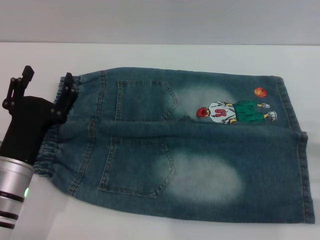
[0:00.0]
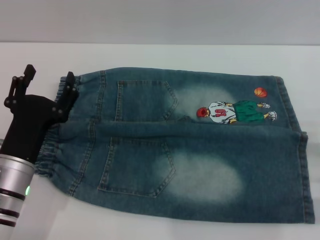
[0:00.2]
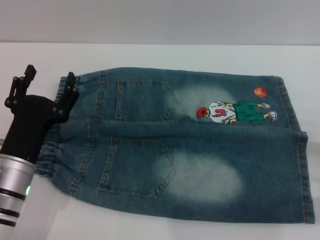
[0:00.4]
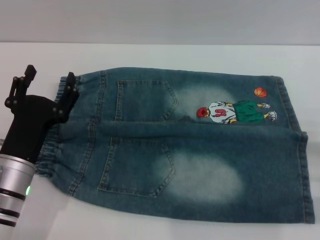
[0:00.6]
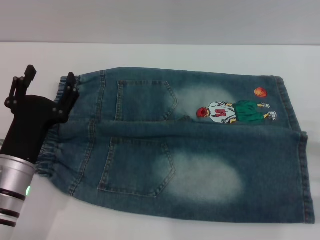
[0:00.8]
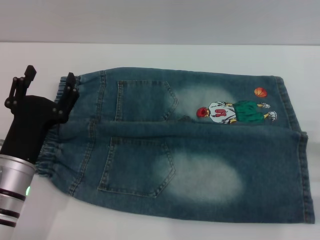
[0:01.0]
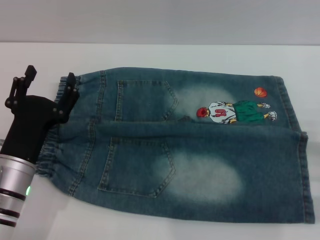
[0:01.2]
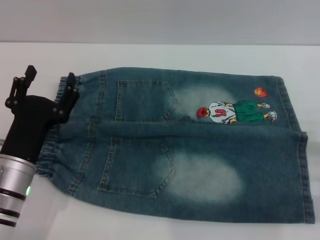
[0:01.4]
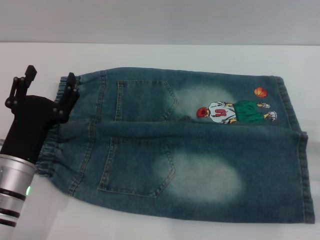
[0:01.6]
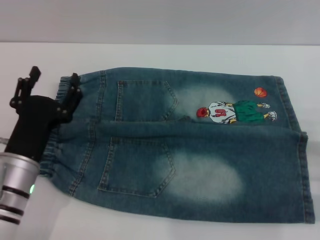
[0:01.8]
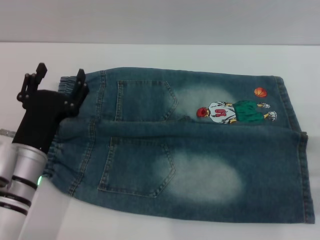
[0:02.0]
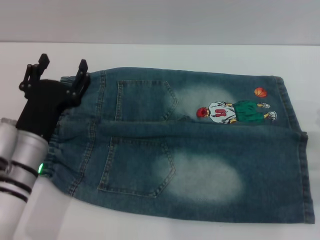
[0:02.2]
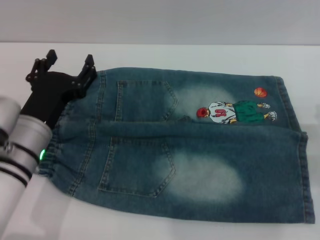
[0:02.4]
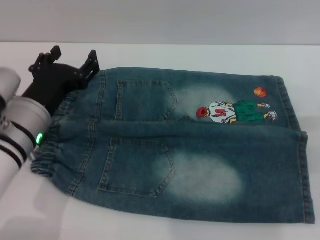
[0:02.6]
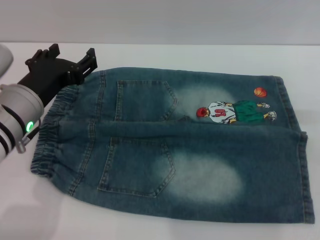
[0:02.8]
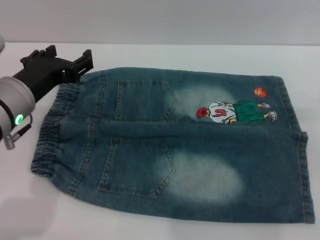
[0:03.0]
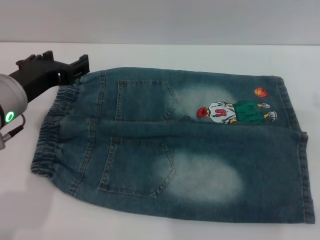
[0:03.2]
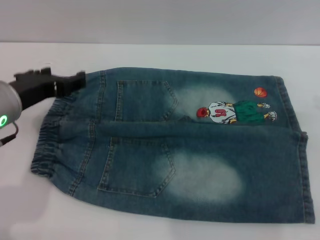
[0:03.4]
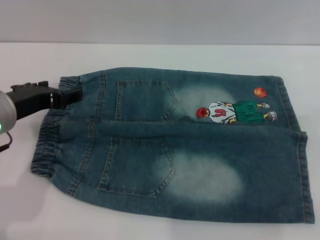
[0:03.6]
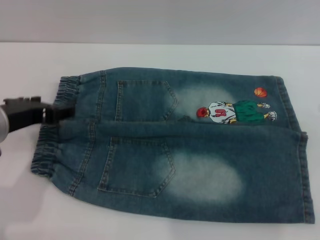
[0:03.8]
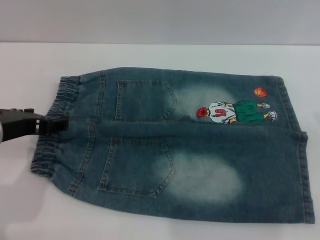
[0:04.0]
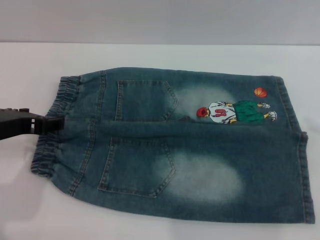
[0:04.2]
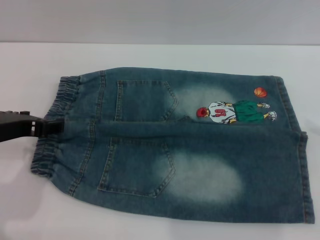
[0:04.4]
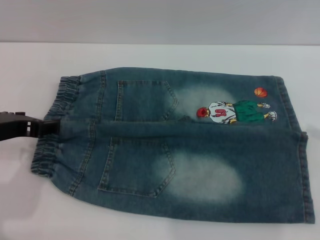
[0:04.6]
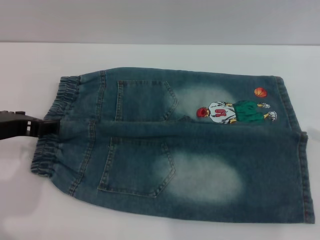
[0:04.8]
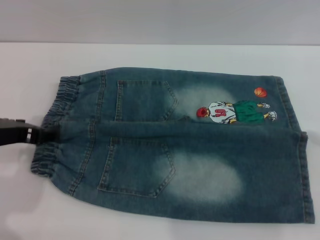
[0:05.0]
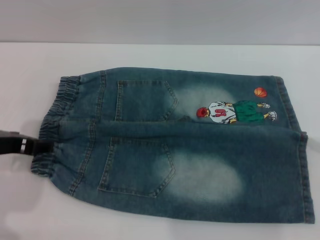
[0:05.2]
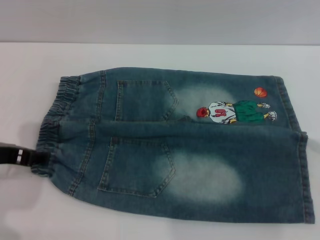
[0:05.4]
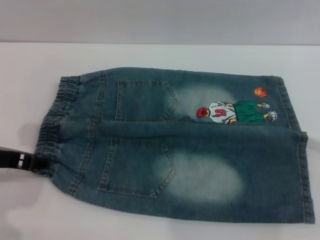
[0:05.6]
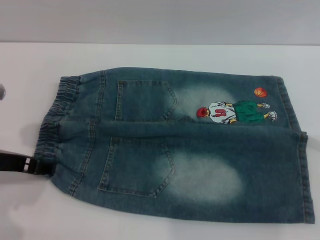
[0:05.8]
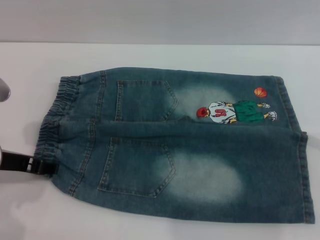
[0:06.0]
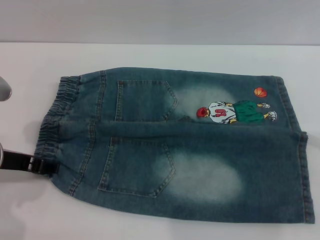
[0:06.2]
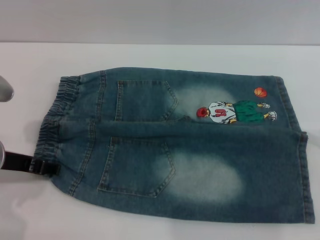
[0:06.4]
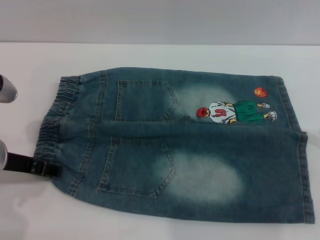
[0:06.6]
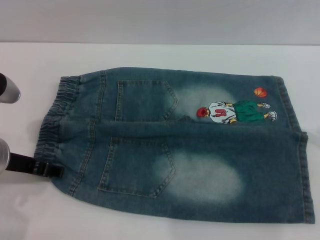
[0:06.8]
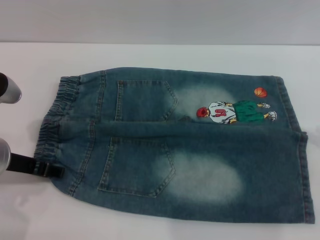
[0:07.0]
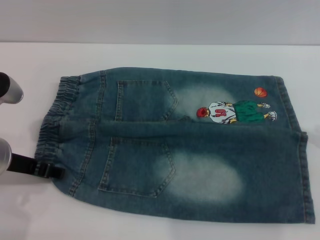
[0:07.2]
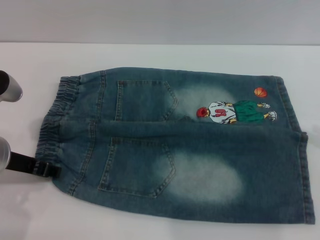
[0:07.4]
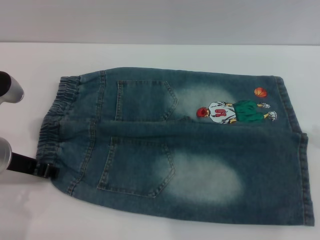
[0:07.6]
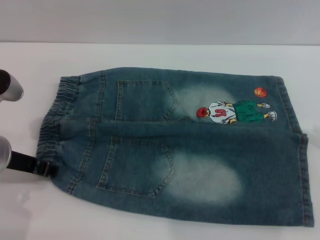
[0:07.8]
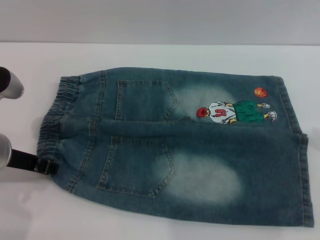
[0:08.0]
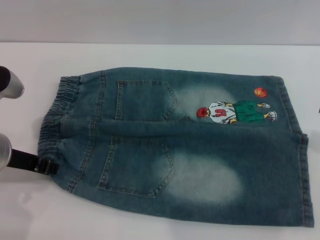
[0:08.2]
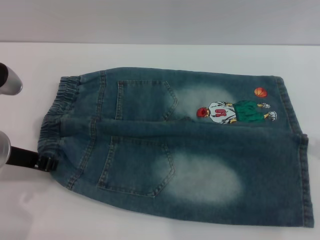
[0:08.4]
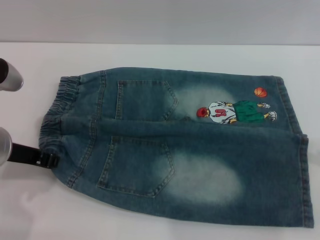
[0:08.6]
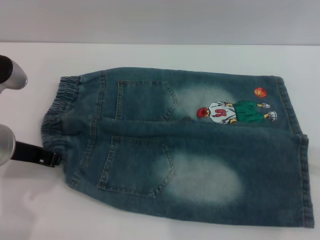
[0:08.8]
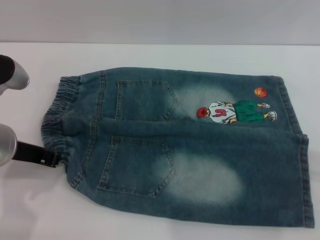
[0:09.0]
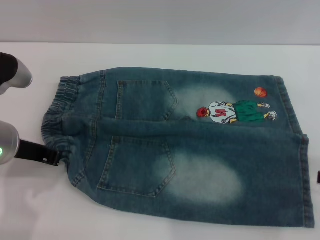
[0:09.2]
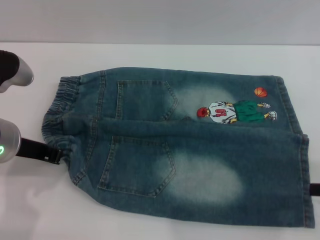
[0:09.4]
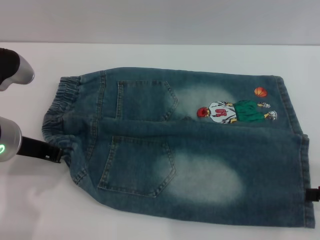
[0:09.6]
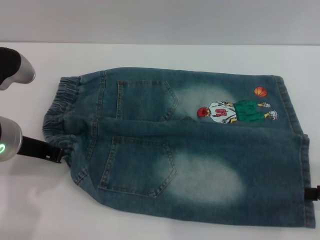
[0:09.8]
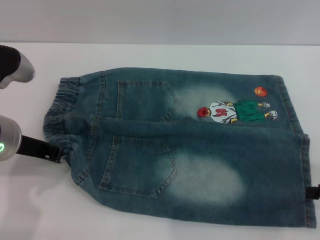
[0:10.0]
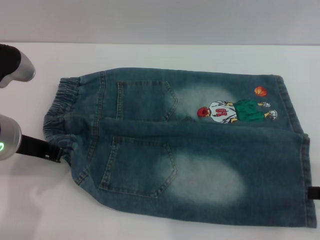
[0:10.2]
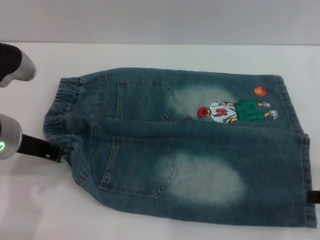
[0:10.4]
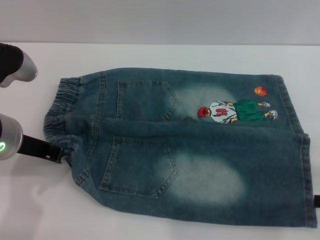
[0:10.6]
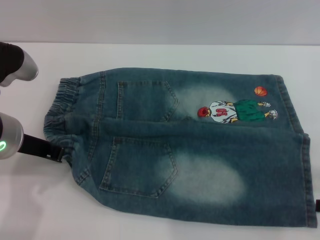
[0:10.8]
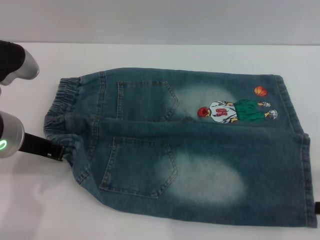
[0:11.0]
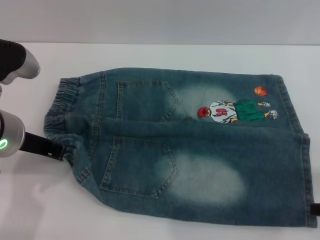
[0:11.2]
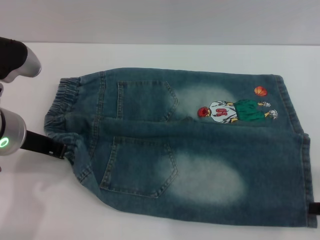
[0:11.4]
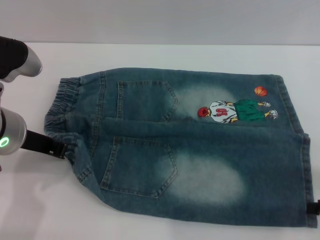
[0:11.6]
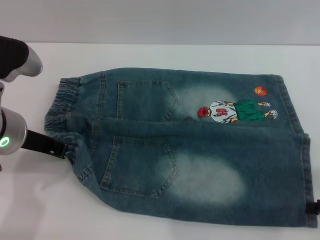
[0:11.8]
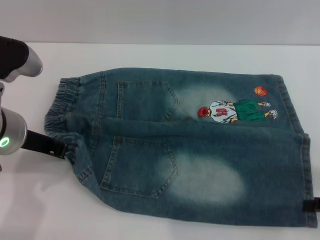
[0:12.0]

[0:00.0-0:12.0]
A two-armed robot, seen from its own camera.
0:00.0 to 0:01.6: Neither gripper changes place.
0:01.6 to 0:03.0: The left gripper travels upward and forward by some 10 cm.
0:04.4 to 0:06.0: The grippers stay close to where they were, moving slightly.
0:06.0 to 0:07.6: The grippers move only a little.
0:07.6 to 0:09.0: The left gripper closes up.
0:09.0 to 0:12.0: The grippers stay close to where they were, moving slightly.

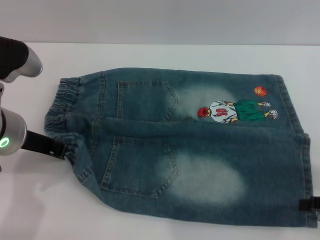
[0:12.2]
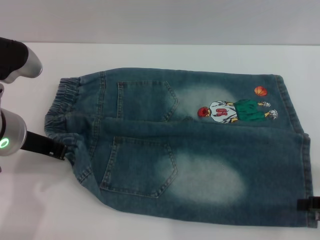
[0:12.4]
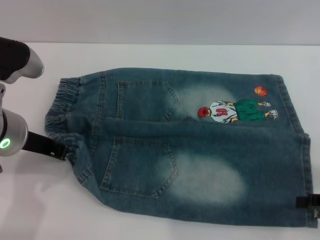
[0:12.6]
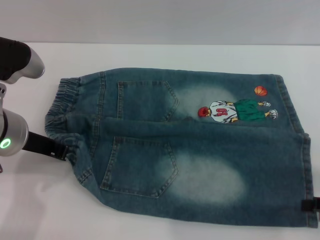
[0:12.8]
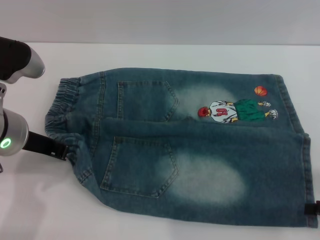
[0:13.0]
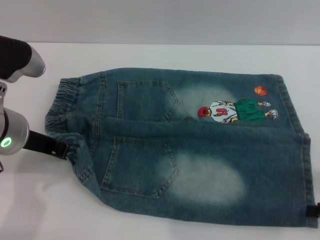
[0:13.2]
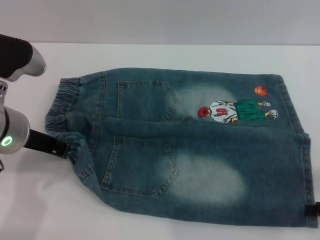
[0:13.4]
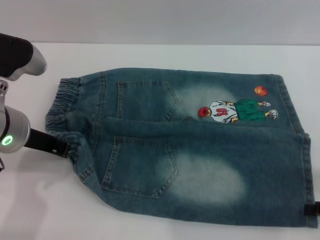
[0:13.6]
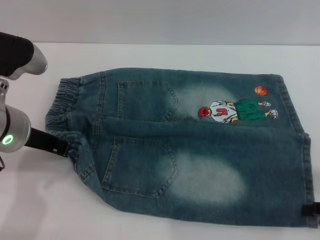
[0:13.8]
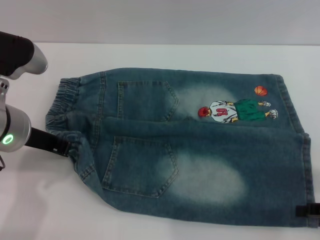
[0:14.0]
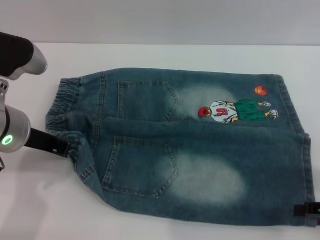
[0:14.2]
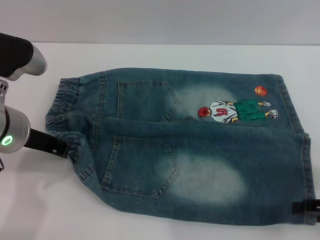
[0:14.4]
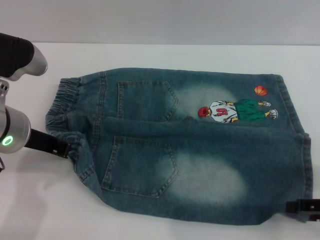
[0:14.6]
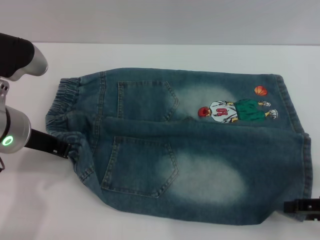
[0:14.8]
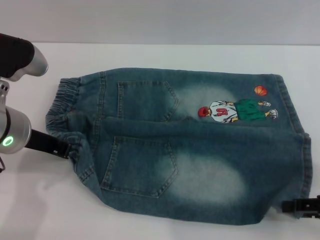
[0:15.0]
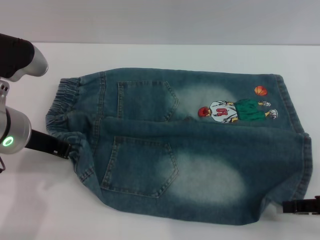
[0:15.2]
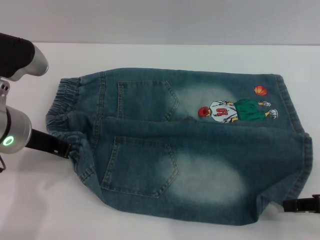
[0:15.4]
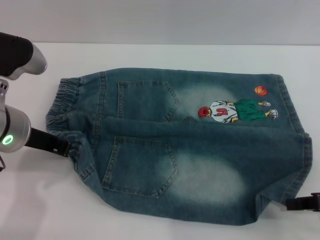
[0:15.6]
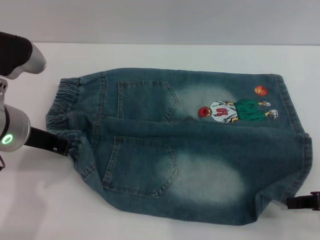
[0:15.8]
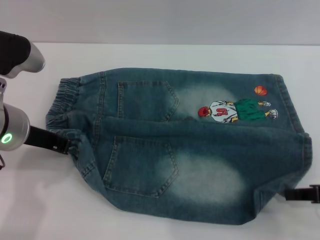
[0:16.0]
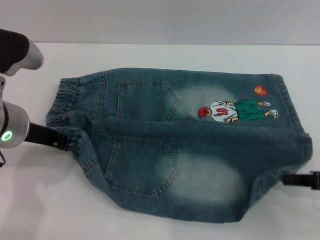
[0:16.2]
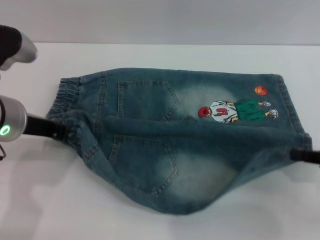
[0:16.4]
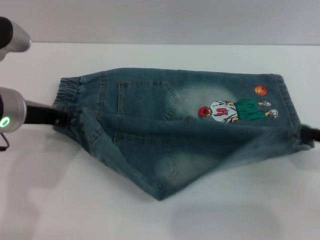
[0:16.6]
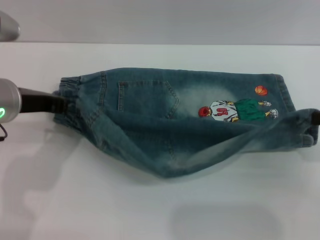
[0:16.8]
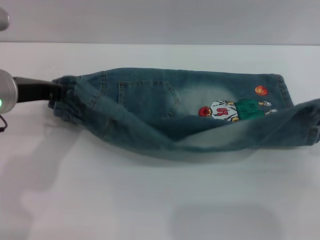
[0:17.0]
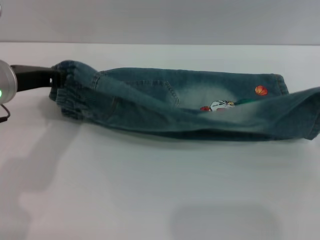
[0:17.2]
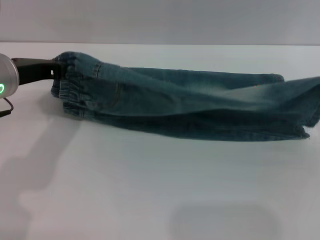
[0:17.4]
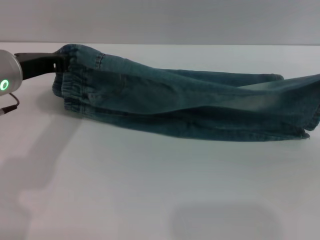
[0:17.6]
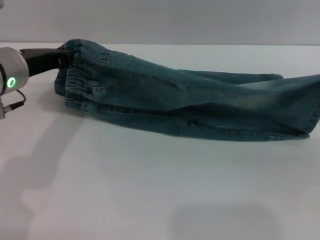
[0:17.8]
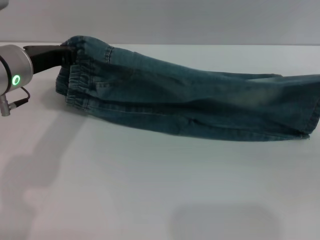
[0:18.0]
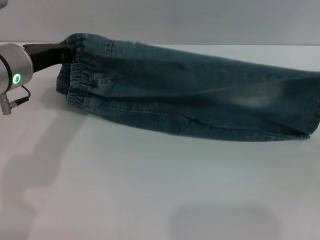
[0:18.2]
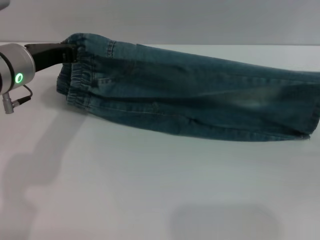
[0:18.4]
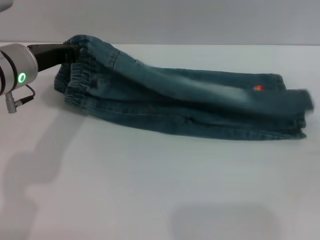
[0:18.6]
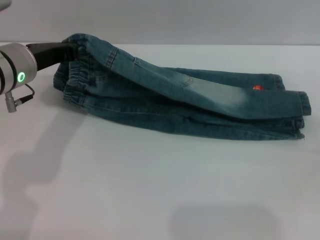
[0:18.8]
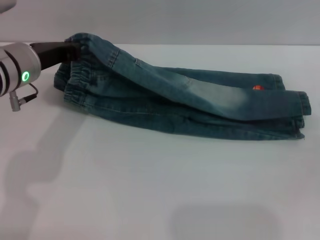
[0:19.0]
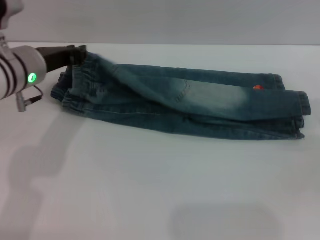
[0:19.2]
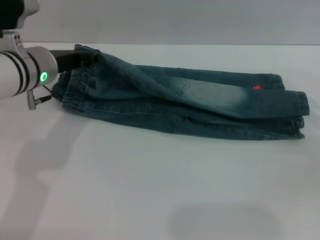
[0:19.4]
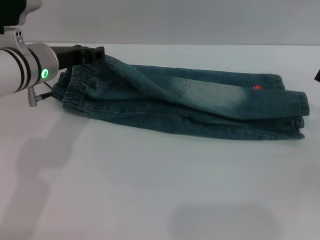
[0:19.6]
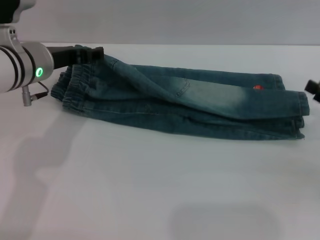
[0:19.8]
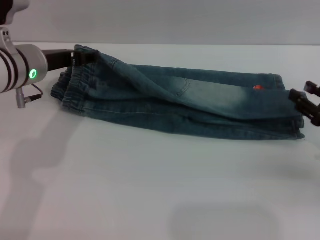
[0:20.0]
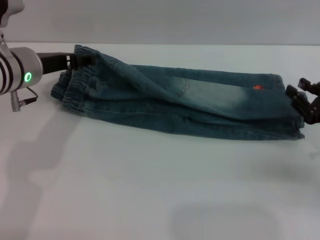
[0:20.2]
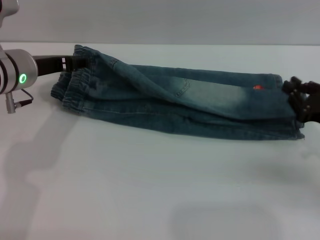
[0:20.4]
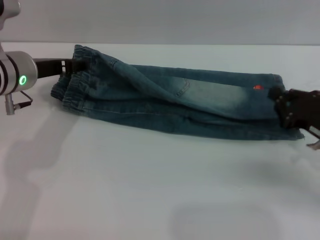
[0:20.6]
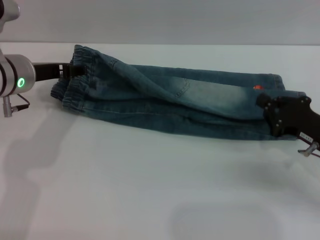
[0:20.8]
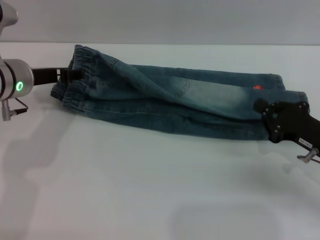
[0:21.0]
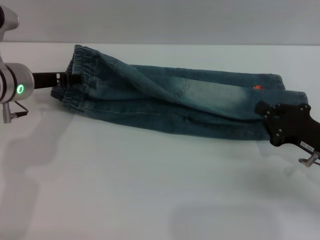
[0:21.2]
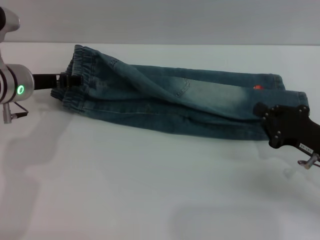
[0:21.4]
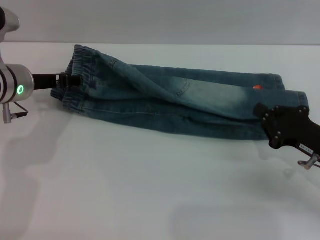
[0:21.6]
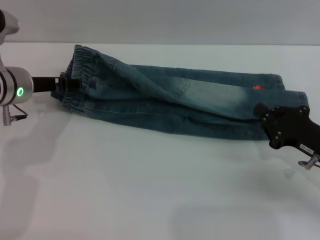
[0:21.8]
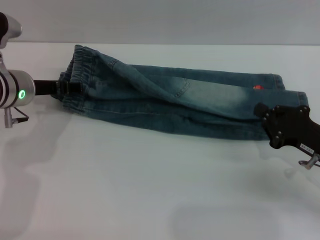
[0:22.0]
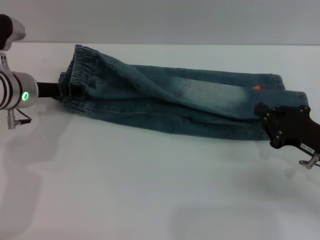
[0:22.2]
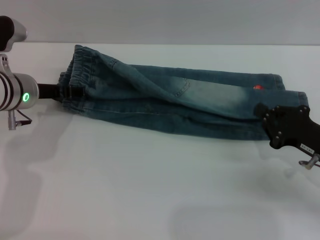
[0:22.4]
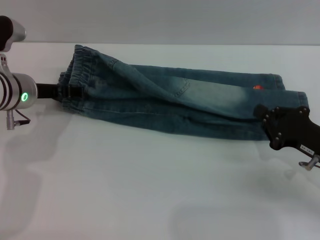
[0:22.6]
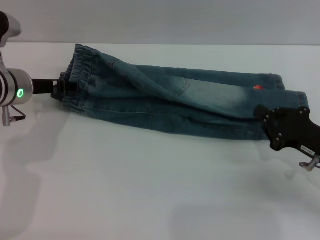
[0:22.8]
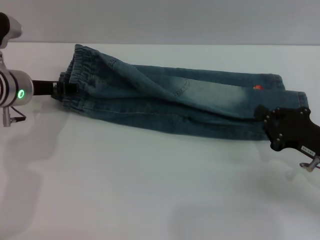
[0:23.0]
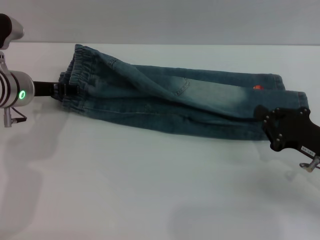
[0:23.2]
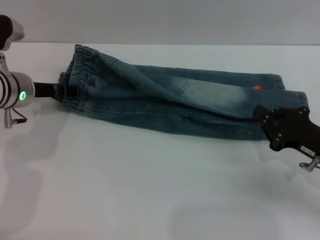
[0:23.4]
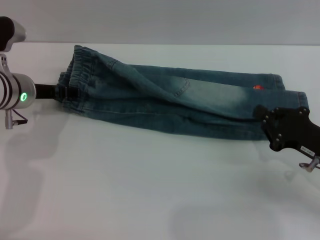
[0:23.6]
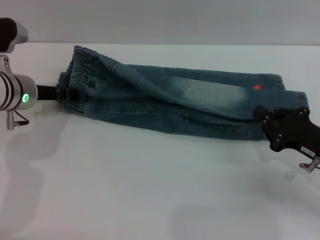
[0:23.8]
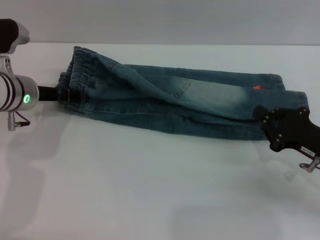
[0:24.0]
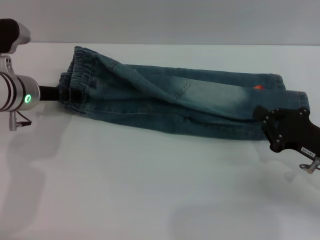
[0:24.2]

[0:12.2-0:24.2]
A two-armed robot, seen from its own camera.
Step, 0:12.2 to 0:21.4: Fold the bottom of the pants upward with both grippers.
0:12.2 to 0:13.8: Both grippers stay about where they are.
0:13.8 to 0:15.2: The grippers move only a little.
0:15.2 to 0:16.6: The right gripper moves some 5 cm, and closes up.
0:16.6 to 0:18.2: The right gripper is displaced to the right by about 5 cm.
0:18.2 to 0:19.8: The left gripper opens. The right gripper opens its fingers.
0:19.8 to 0:21.2: The right gripper is displaced to the left by roughly 5 cm, and closes up, while the left gripper opens.
0:21.2 to 0:22.6: The grippers move only a little.
0:22.6 to 0:24.2: Neither gripper changes place.
